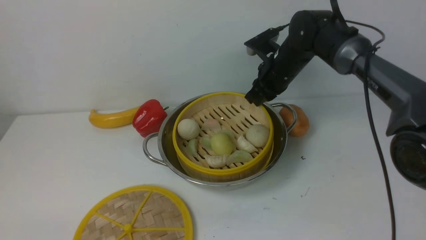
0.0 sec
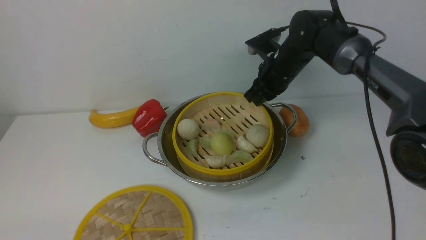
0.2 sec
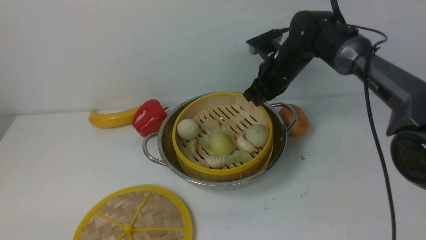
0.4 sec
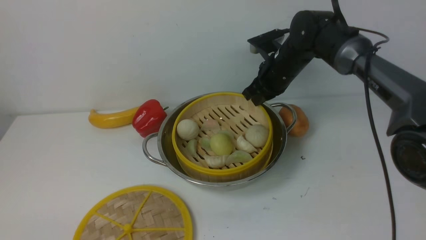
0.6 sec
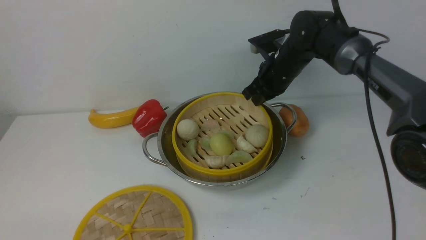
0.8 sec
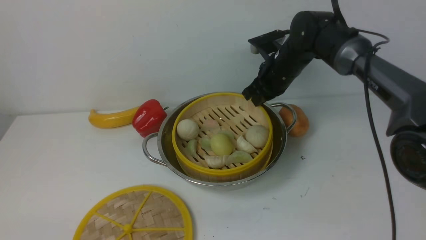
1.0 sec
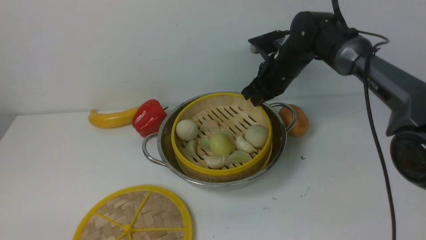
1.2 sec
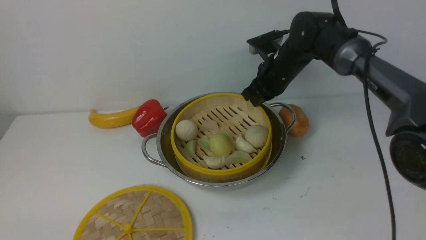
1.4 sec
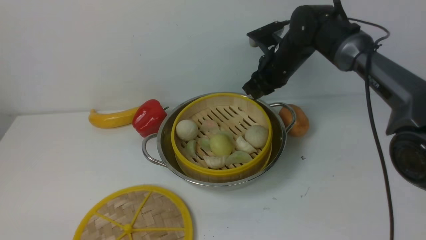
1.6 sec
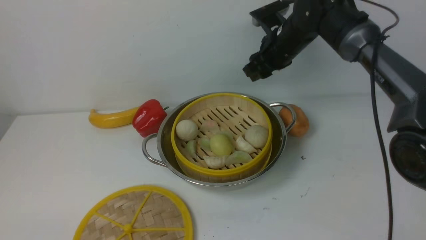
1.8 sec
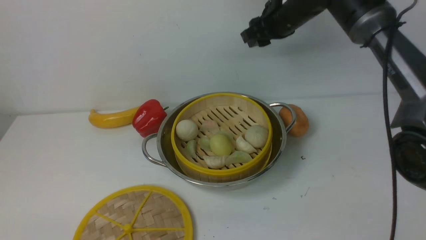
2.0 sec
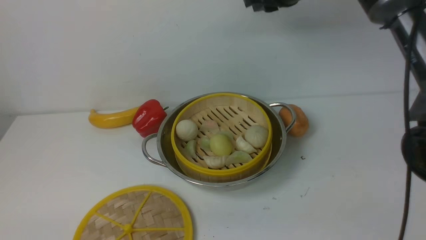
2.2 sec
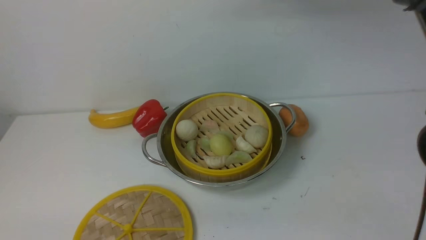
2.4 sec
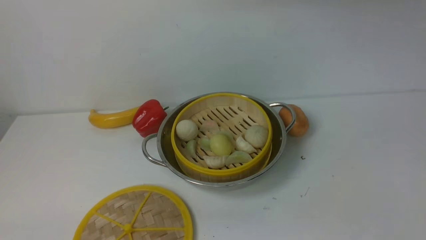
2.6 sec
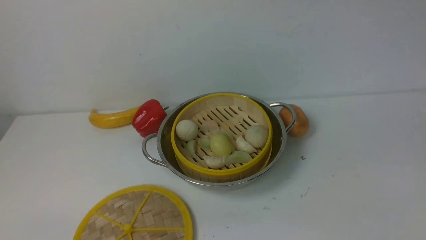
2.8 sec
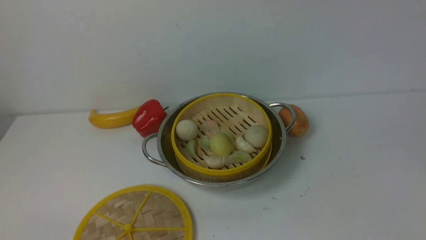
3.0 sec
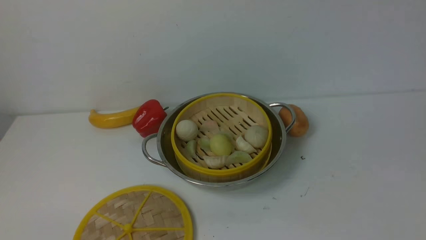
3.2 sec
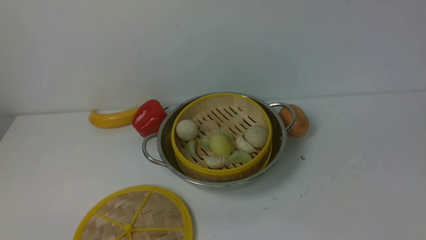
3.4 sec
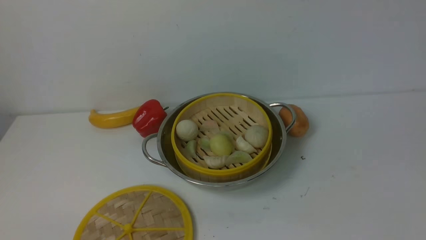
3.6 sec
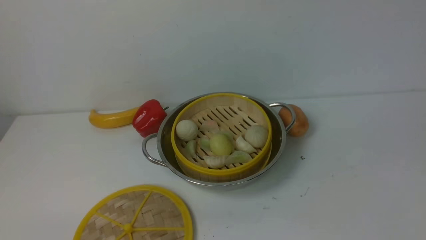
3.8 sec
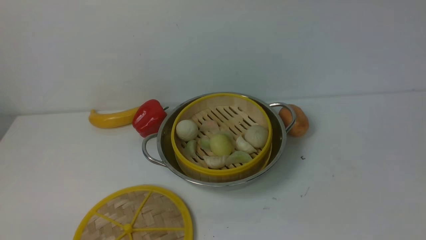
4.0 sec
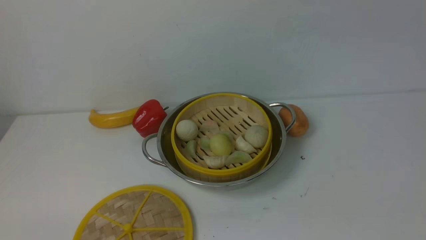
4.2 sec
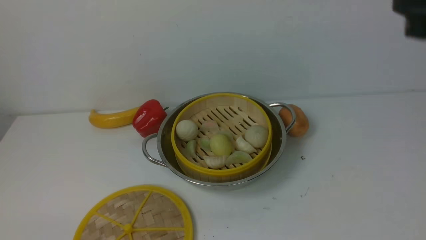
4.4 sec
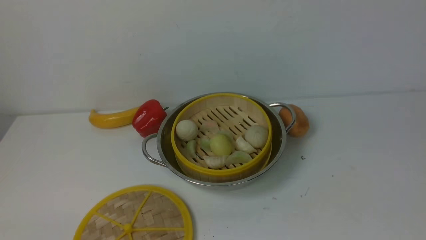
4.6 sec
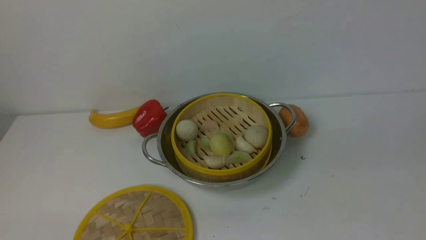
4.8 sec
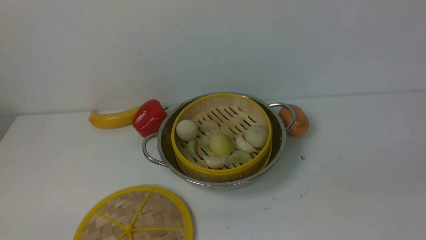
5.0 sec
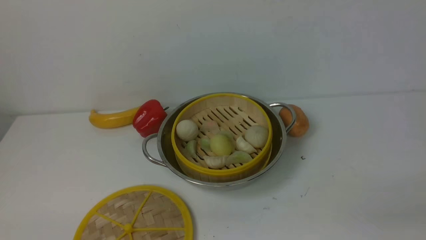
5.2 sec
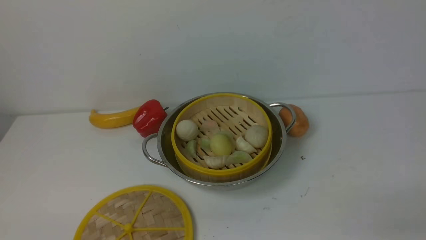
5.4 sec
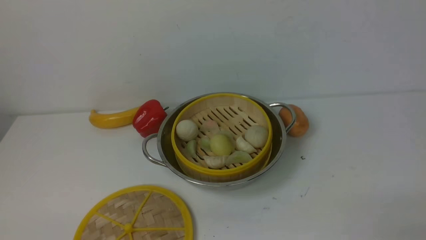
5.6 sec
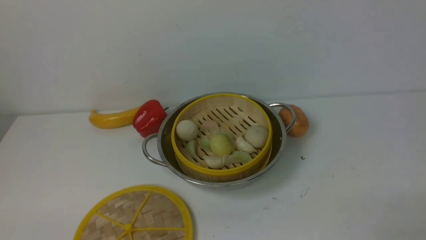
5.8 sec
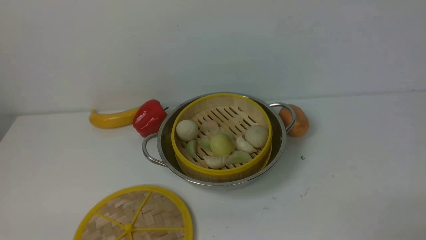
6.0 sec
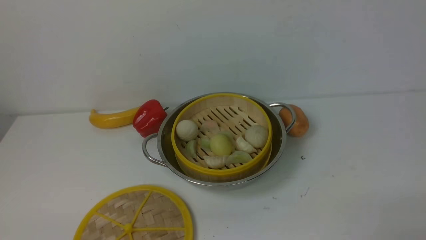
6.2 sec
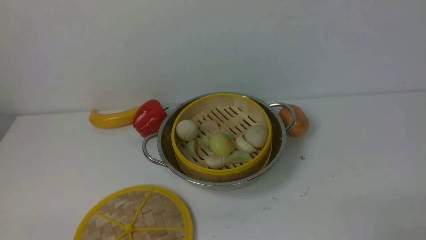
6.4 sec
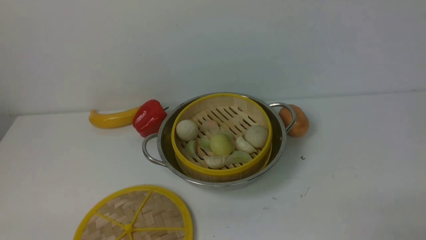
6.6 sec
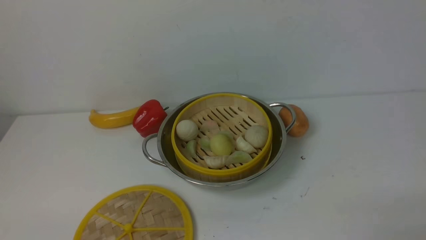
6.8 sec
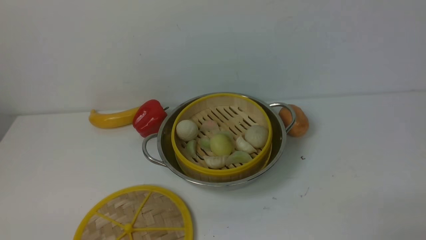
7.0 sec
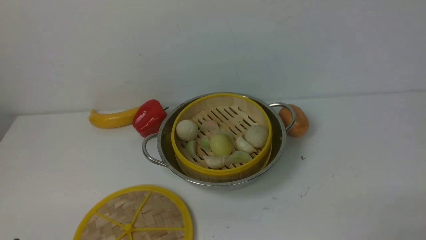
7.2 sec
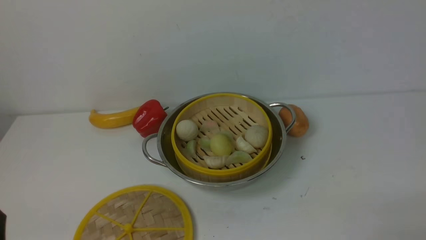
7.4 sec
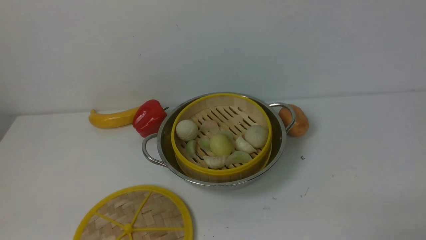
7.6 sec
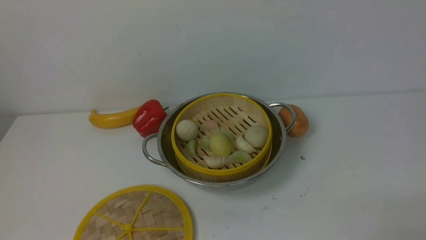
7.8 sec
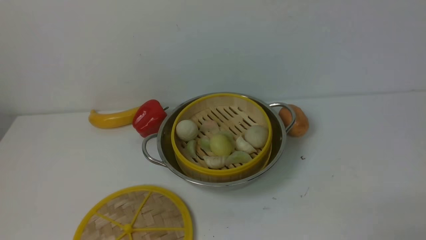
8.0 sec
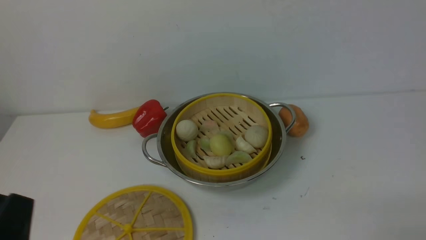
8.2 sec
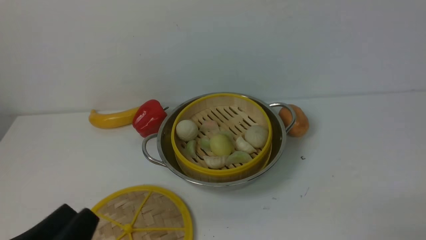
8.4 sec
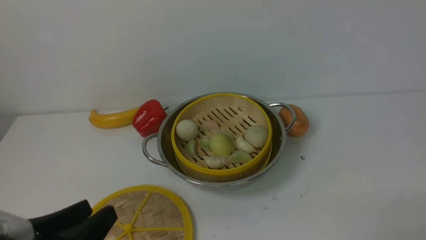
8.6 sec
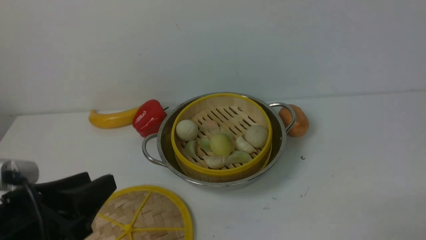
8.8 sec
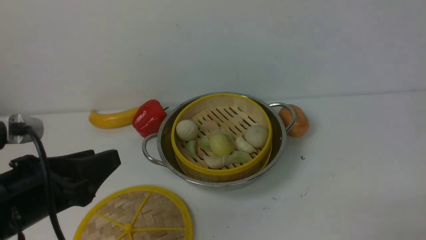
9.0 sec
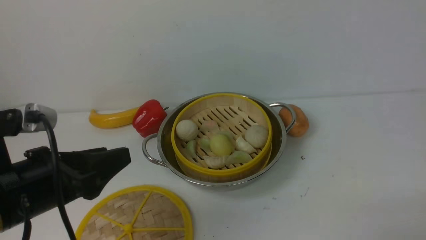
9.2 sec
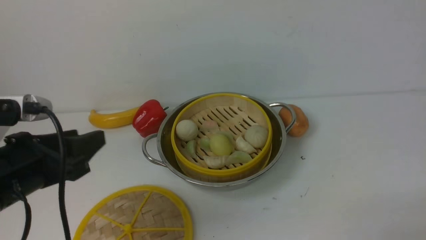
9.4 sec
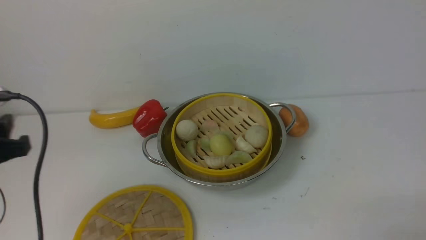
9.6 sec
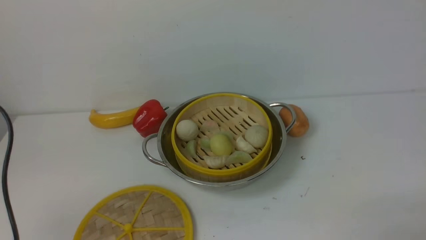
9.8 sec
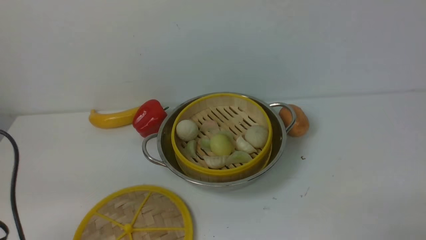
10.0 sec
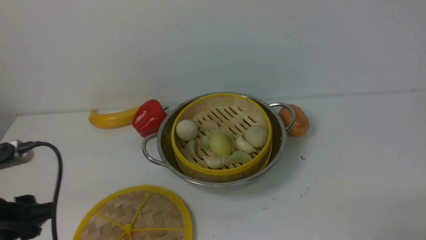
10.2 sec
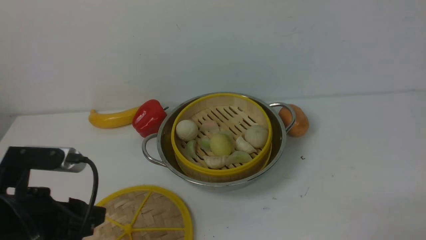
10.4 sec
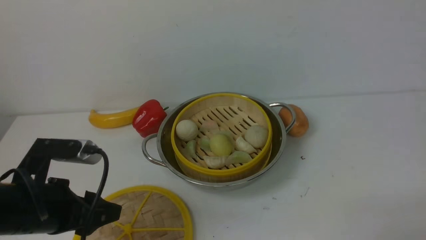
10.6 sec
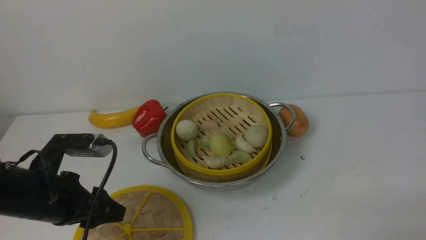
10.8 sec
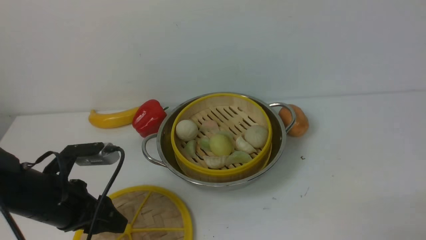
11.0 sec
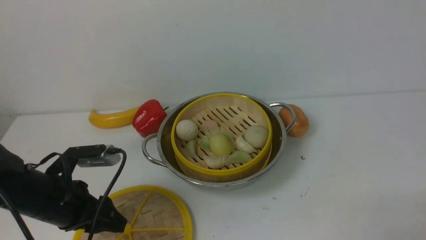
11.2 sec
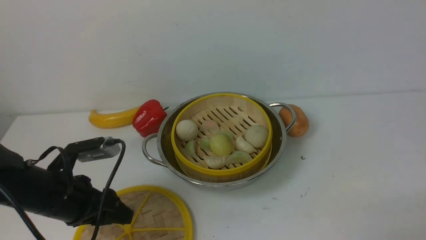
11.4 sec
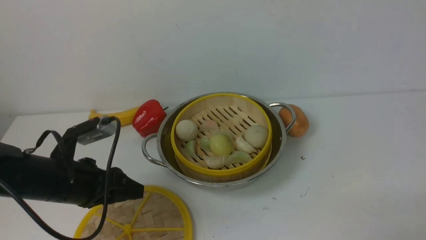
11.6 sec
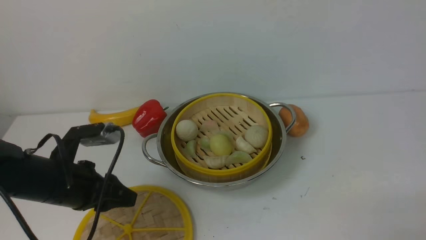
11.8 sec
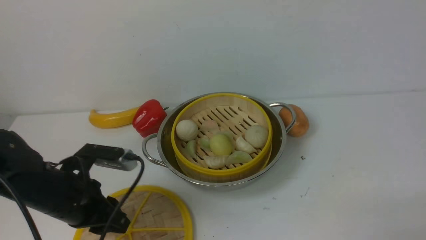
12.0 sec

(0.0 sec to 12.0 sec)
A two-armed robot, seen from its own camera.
Task of the whole recording: place the steamer in the pot on the white table, and put the lid on the steamer.
0.0 sec - 1.6 sec: The right gripper opens its fingers.
1.6 sec - 3.0 sec: The right gripper heads upward and backward, covering approximately 40 cm, and closes its fingers.
3.0 sec - 4.4 sec: The right gripper is displaced downward, backward and to the right by about 20 cm, and opens up.
4.4 sec - 6.0 sec: The right gripper travels downward and backward by about 30 cm, and opens up.
7.6 sec - 9.0 sec: The left gripper is displaced forward and upward by roughly 10 cm.
10.4 sec - 12.0 sec: The left gripper travels forward and downward by approximately 10 cm, and closes up.

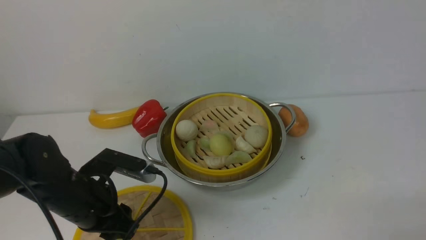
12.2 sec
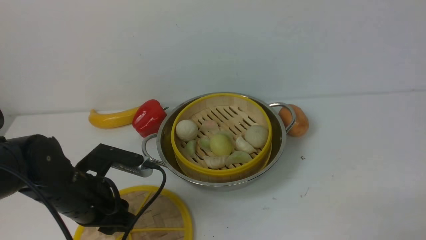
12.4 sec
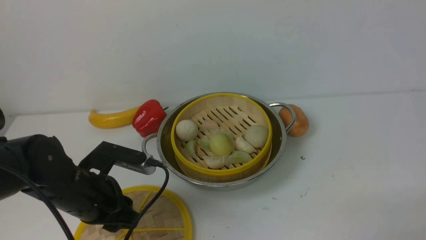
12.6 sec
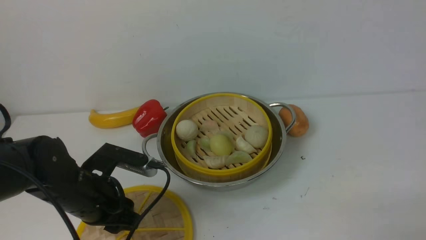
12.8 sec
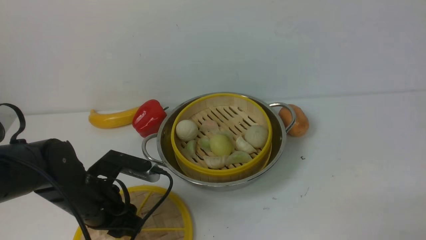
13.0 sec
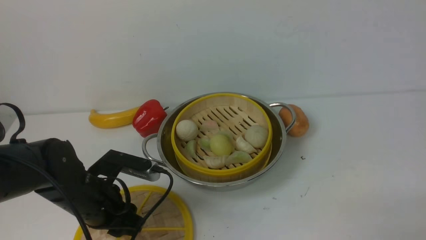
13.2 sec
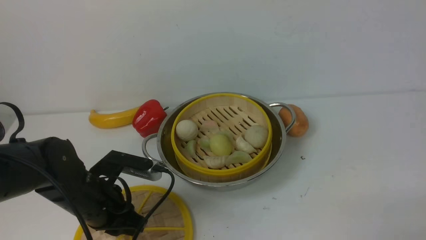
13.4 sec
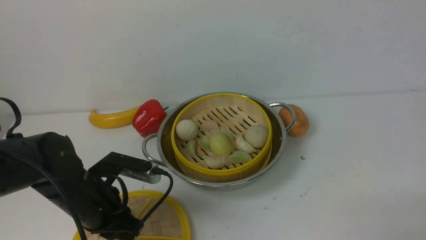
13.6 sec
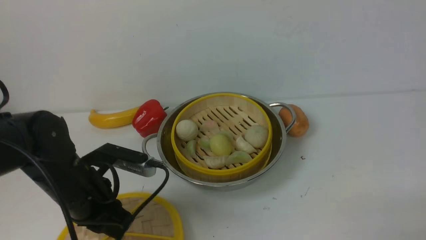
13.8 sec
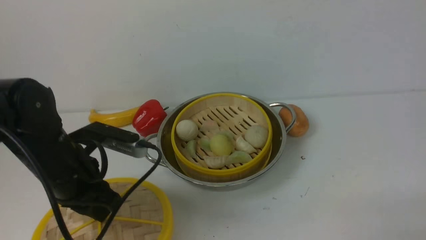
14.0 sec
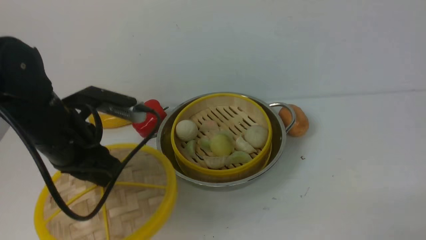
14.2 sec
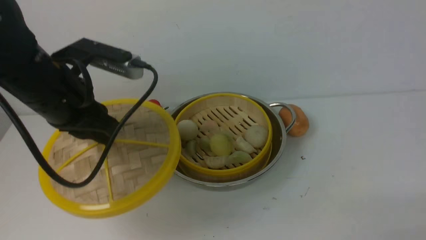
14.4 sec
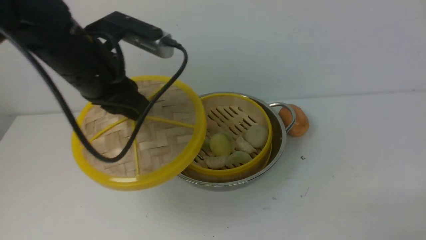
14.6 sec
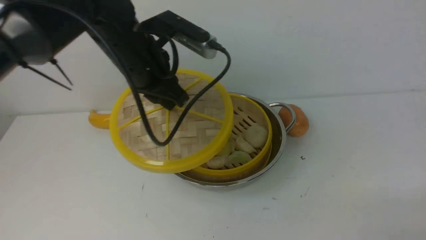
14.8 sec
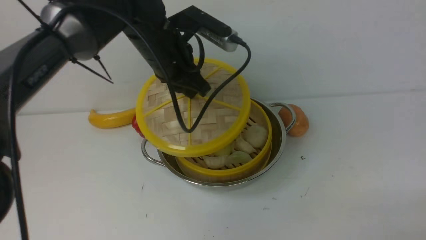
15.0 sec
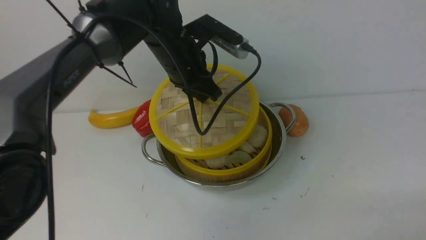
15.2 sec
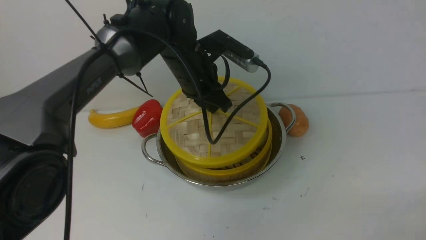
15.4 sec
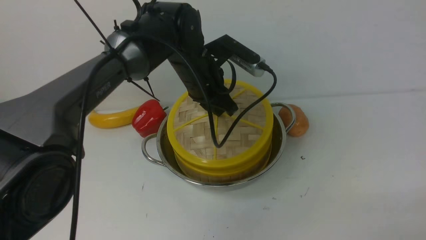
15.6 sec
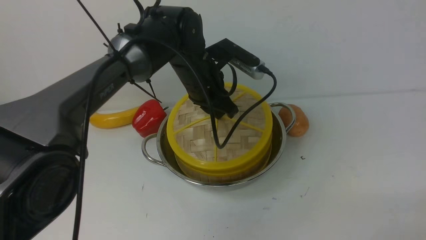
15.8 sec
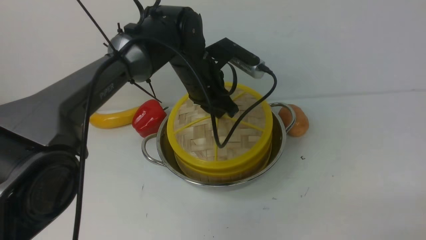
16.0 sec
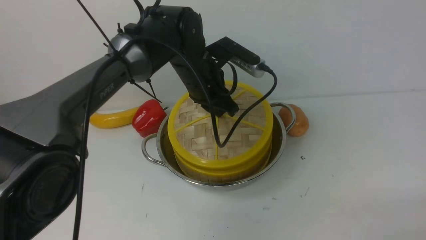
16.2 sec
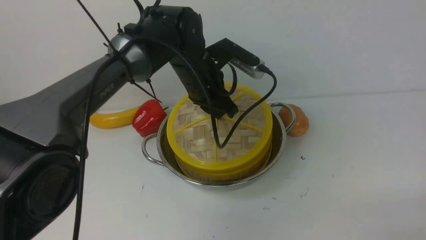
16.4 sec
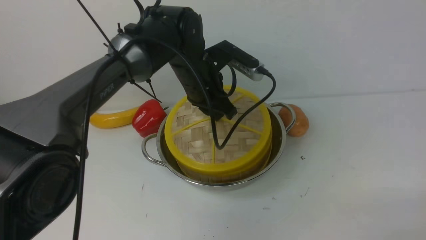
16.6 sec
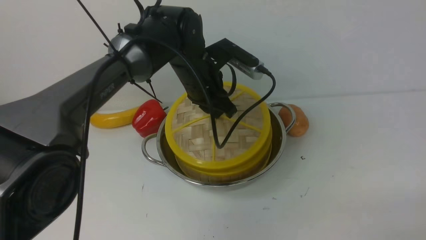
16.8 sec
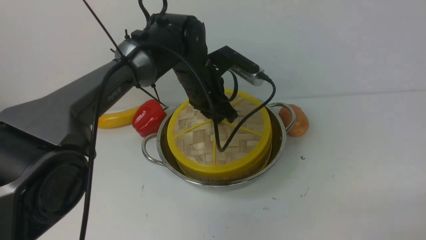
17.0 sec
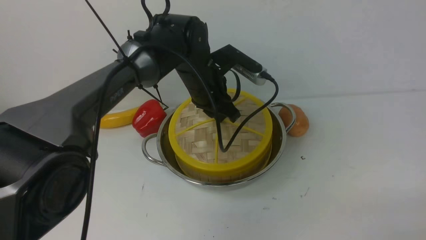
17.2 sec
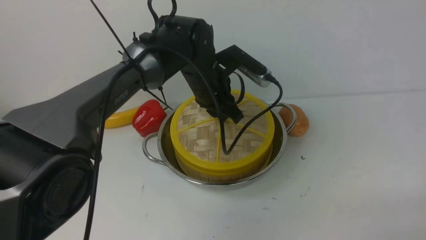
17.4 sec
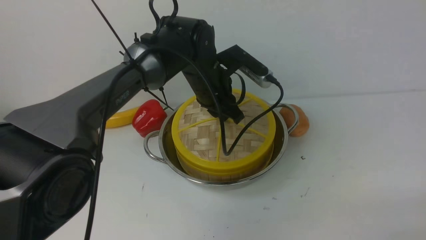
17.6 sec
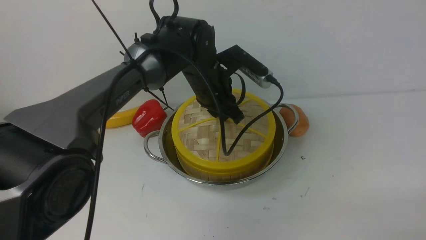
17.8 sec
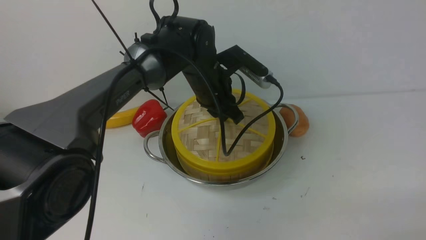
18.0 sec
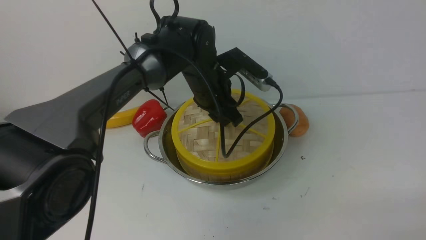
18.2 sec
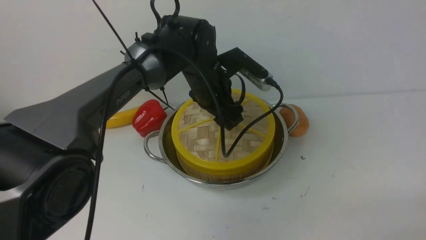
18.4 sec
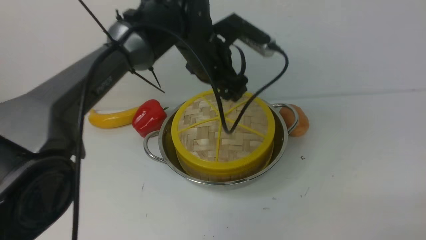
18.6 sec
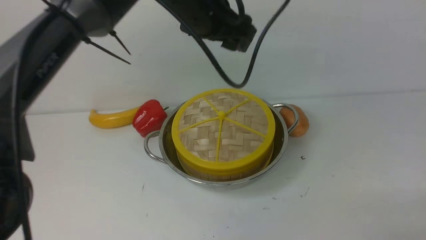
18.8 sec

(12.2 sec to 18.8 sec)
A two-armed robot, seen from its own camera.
Task of the whole recording: place the steamer in the pot on the white table, and put the lid on the steamer.
12.2 sec - 13.8 sec: The left gripper closes its fingers.
13.8 sec - 15.4 sec: The left gripper shifts roughly 25 cm forward and to the right.
15.4 sec - 17.2 sec: The grippers move only a little.
17.2 sec - 18.8 sec: The left gripper travels upward by about 15 cm, and opens up.
